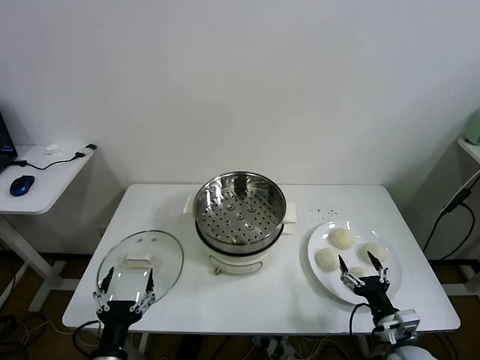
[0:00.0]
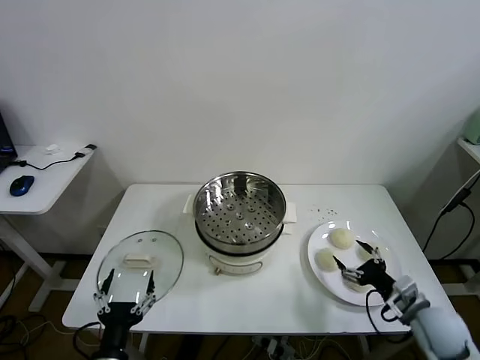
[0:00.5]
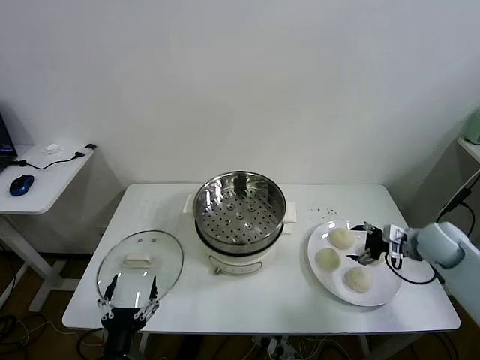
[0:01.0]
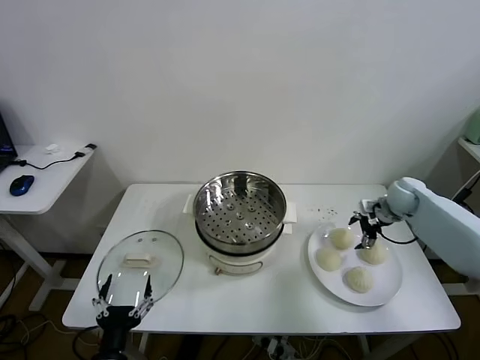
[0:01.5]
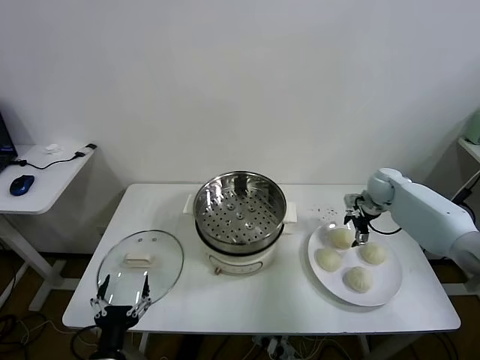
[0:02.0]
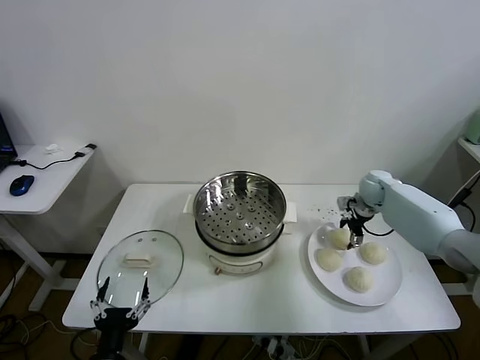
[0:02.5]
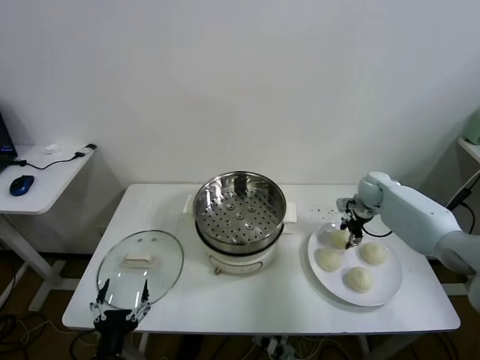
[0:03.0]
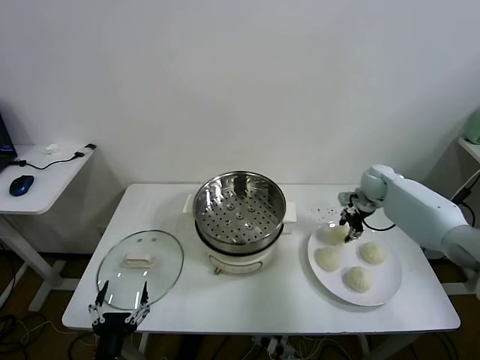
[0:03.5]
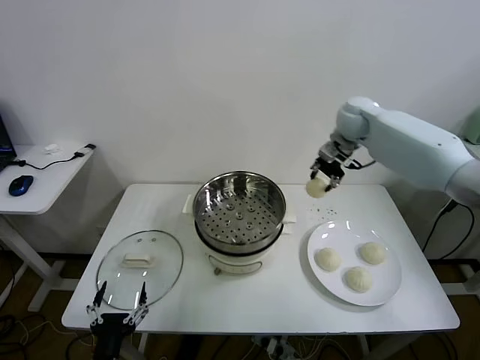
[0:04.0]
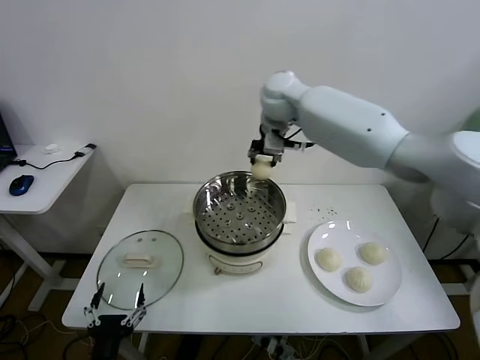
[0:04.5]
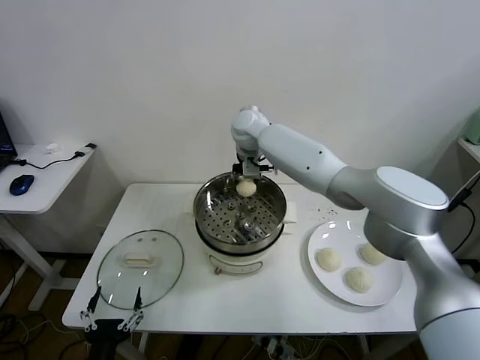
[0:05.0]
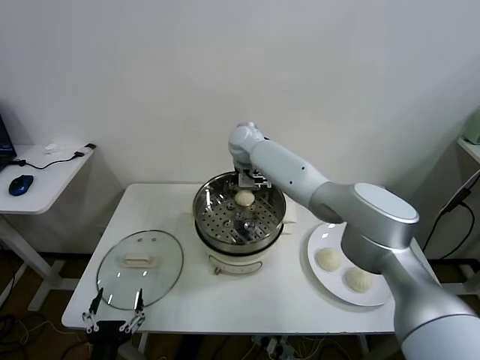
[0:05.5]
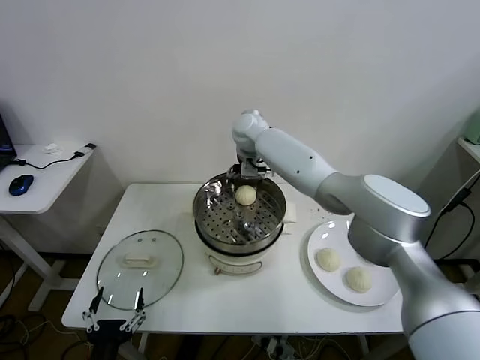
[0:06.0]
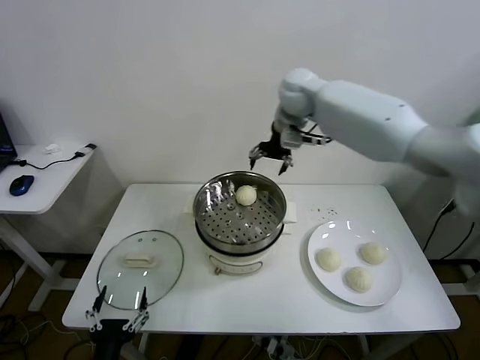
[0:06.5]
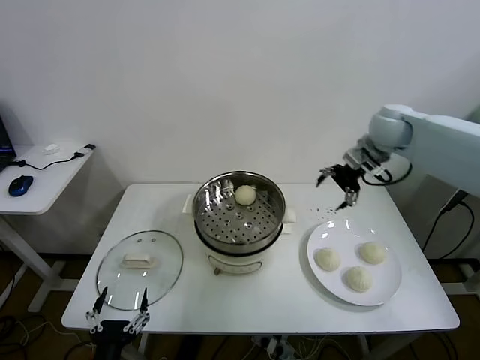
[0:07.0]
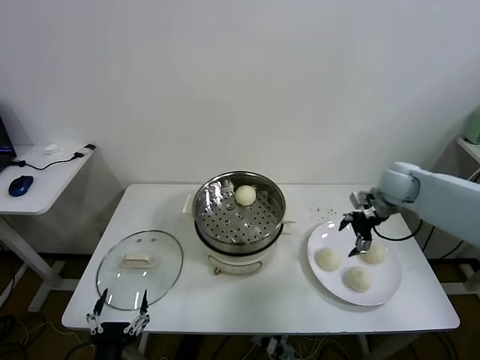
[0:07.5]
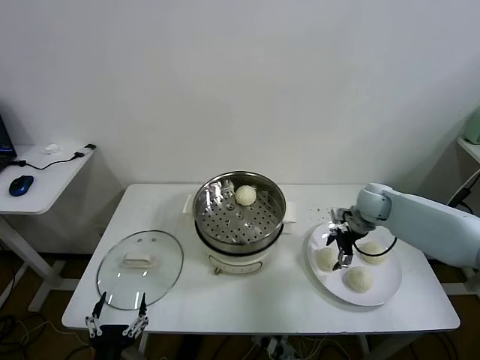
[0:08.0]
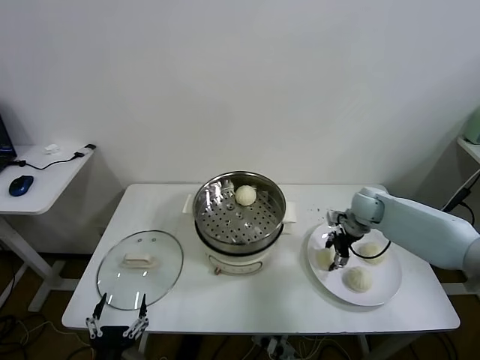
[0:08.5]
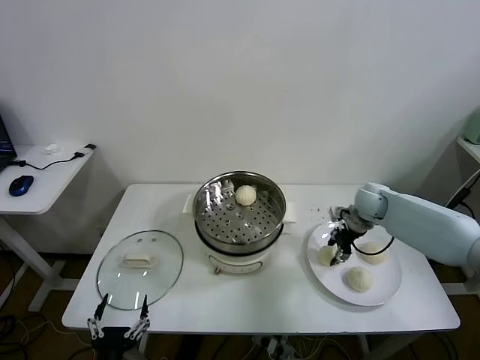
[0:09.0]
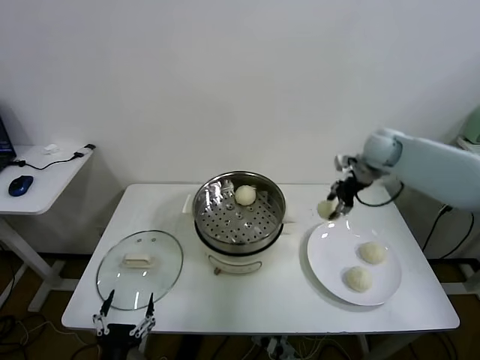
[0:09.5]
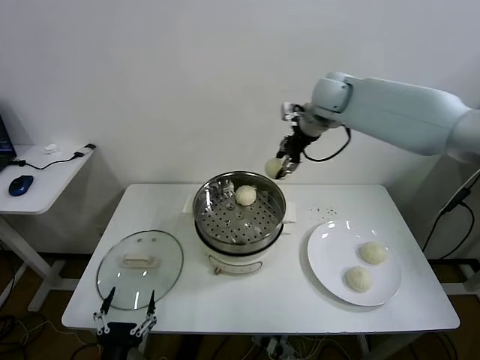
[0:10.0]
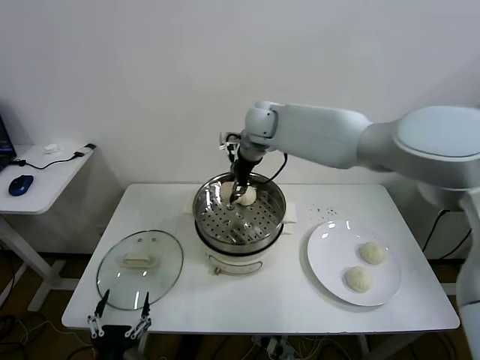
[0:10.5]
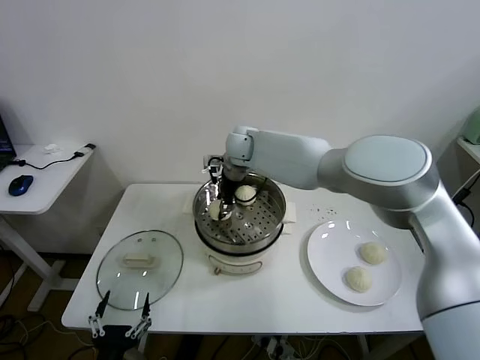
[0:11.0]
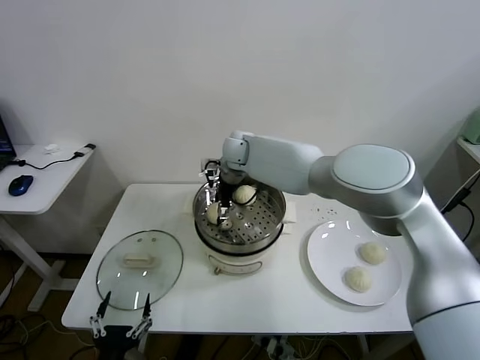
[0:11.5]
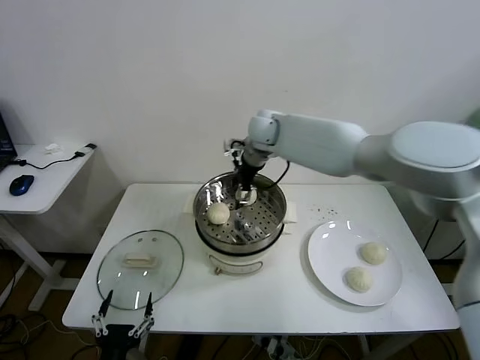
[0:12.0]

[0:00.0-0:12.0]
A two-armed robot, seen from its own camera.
Task of the whole recording: take steamed baozi put them in steamer.
Step, 0:00.0 to 0:03.0: Grasp the baozi in the plate with right gripper.
Step, 0:03.5 to 0:05.5: Place the baozi on the steamer with right gripper.
Step, 0:06.0 to 0:08.5: Grasp the baozi in the plate with right gripper.
Step, 0:09.0 to 0:11.5: Place the baozi on the steamer with right gripper.
0:02.0 to 0:04.0: The right gripper travels upward and to the left by roughly 30 cm, and closes its fingers.
0:04.0 to 0:06.0: The right gripper shifts approximately 20 cm to the left, and opens its fingers.
0:06.0 to 0:08.0: The right gripper goes approximately 35 cm to the right and downward.
0:08.0 to 0:10.0: The right gripper is displaced upward and to the left by some 30 cm, and closes.
0:10.0 to 0:12.0: The right gripper goes some 10 cm downward and to the left, and opens up.

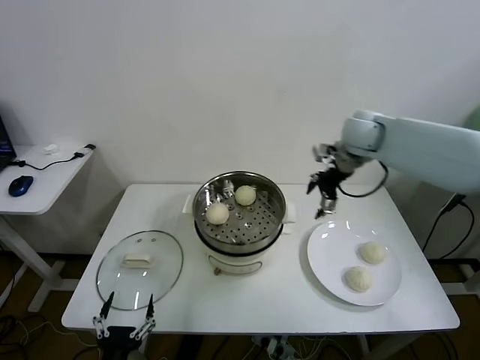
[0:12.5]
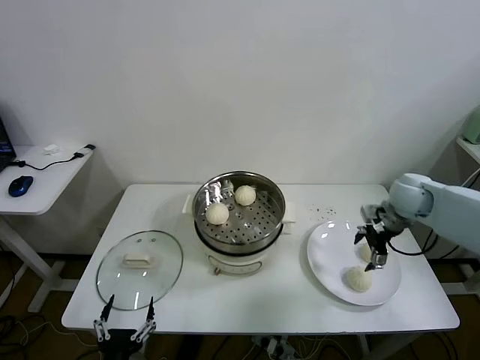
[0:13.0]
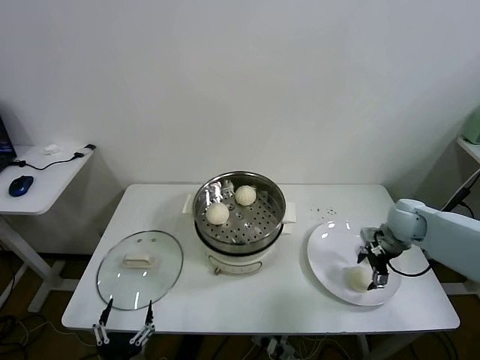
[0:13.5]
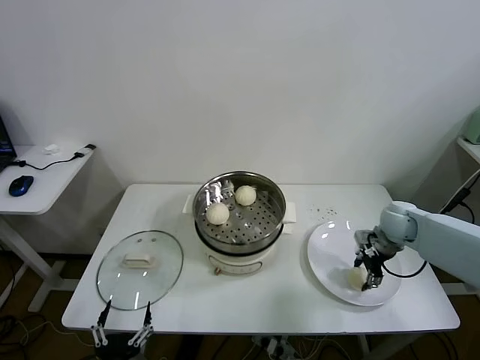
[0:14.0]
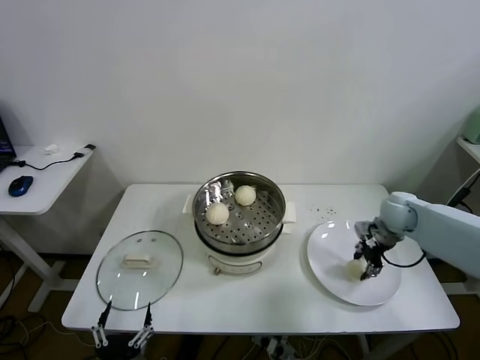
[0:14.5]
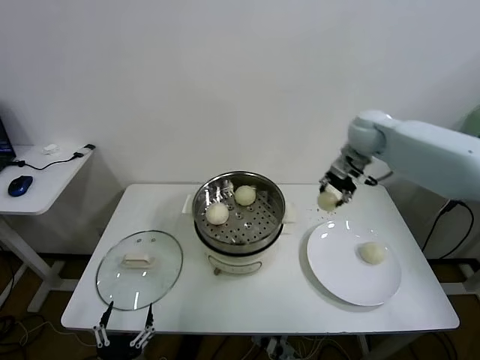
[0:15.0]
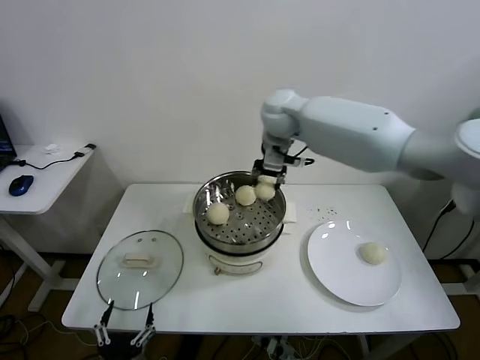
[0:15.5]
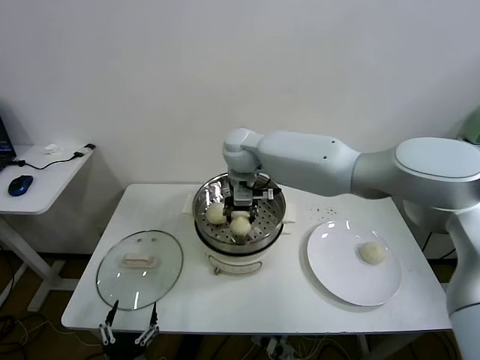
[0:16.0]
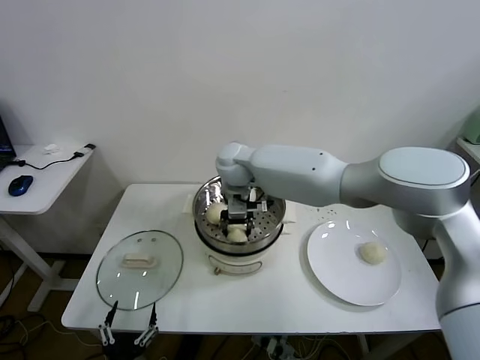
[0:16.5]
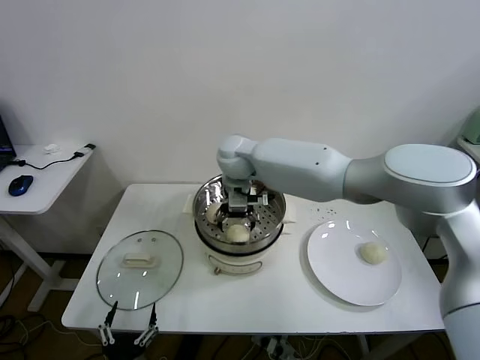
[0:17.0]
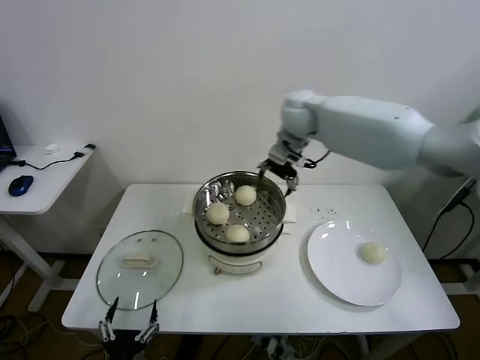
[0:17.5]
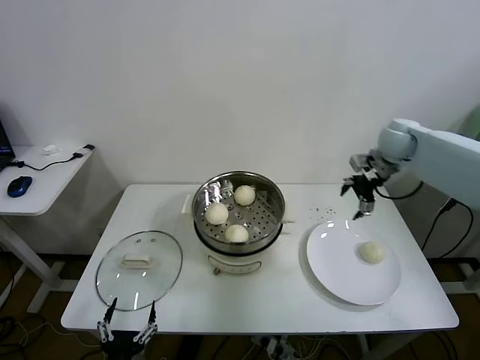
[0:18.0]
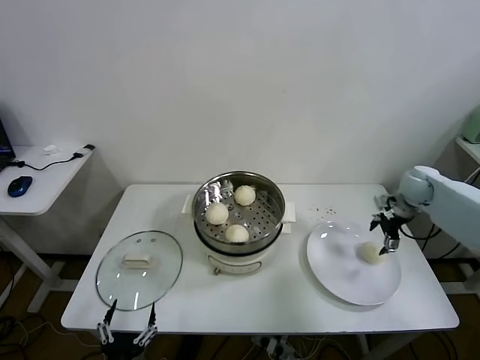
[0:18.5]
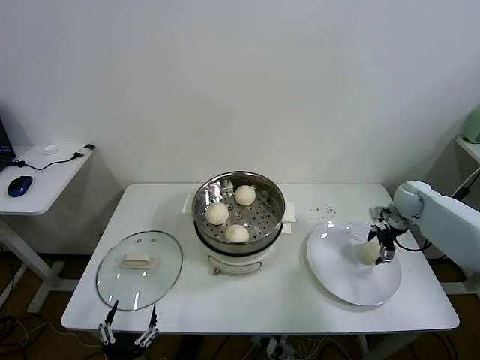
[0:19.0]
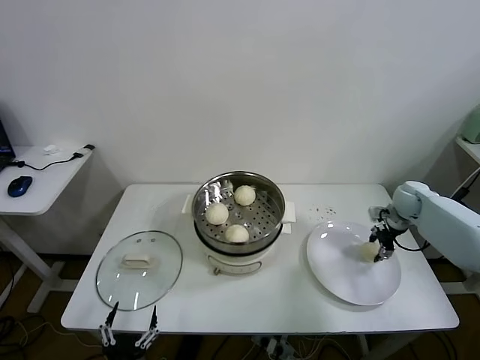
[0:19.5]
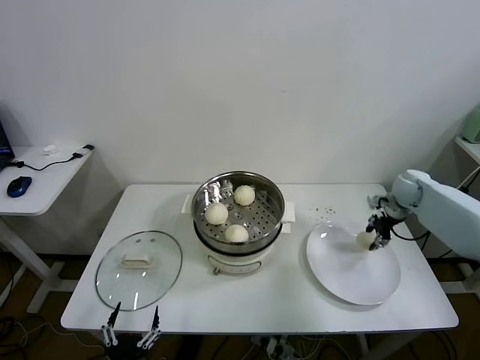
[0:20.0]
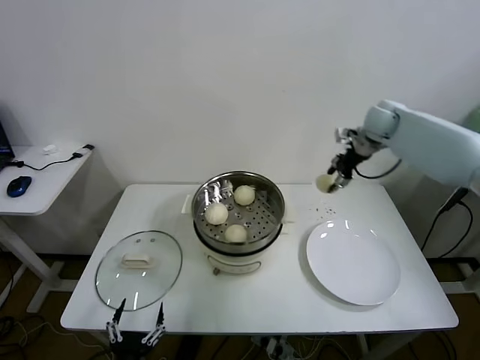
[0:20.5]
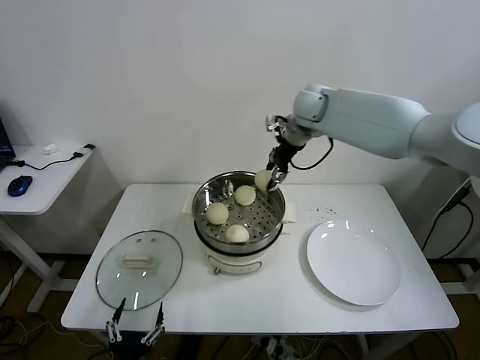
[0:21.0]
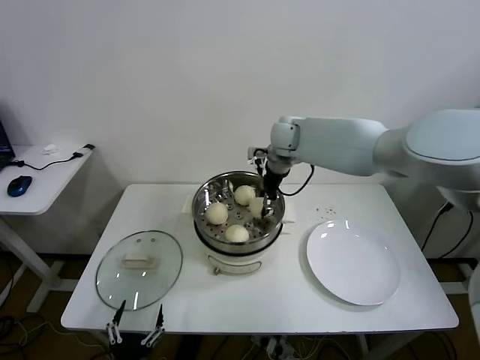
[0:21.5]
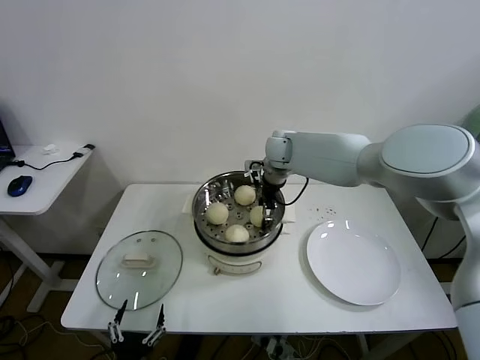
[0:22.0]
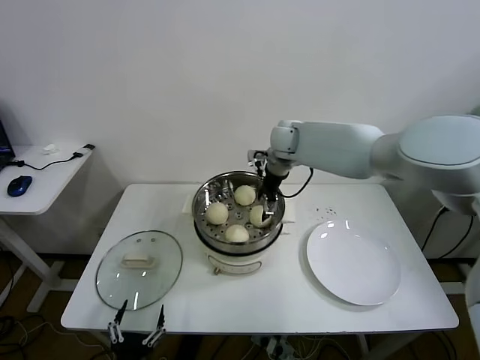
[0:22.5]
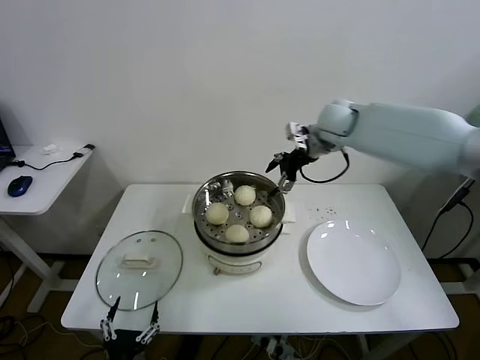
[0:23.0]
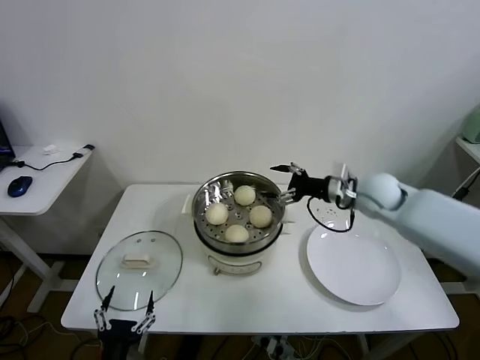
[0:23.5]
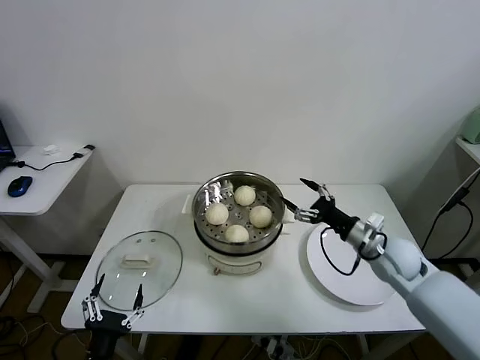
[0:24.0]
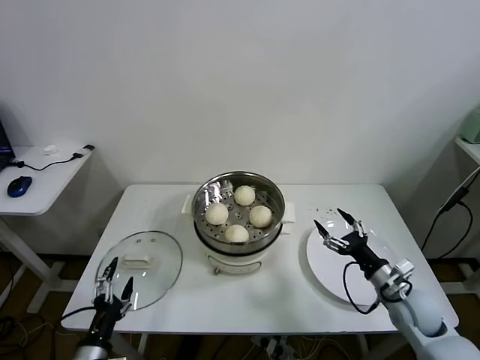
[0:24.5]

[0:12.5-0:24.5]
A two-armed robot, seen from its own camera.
Task of the whole recording: take steamed baozi put them in steamer.
Step, 0:12.5 to 0:14.0: Grasp the baozi in the plate with right gripper.
Step, 0:14.5 to 0:16.5: Place the baozi on the steamer with right gripper.
Step, 0:17.0 to 0:19.5: Grasp the baozi in the plate with right gripper.
Step, 0:20.0 to 0:22.5: Place the baozi on the steamer with right gripper.
0:12.5 to 0:14.5: The right gripper is displaced downward and to the right by approximately 15 cm, and closes its fingers.
0:14.5 to 0:16.5: The right gripper heads to the left, covering roughly 40 cm.
0:16.5 to 0:18.5: The right gripper shifts some 50 cm to the right, and opens up.
0:18.5 to 0:20.5: The right gripper shifts roughly 25 cm upward, to the left and forward, and closes up.
0:20.5 to 0:22.5: The right gripper moves to the left, roughly 20 cm, and opens its fingers.
0:22.5 to 0:24.5: The right gripper is displaced backward, to the right and downward by about 50 cm. Meanwhile the left gripper goes approximately 10 cm to the left and forward.

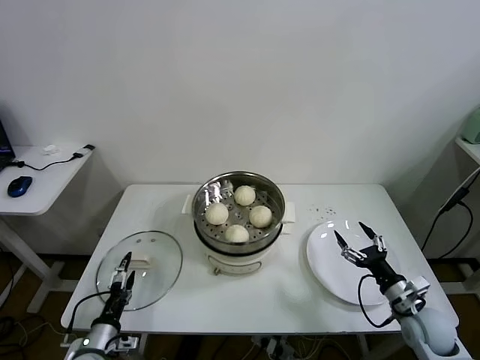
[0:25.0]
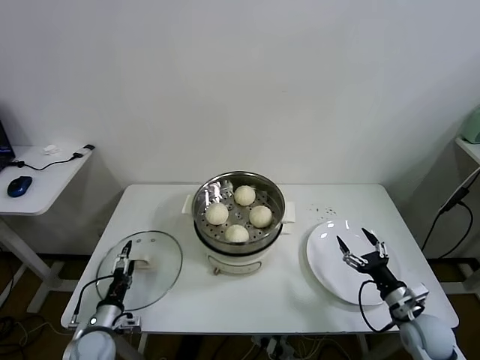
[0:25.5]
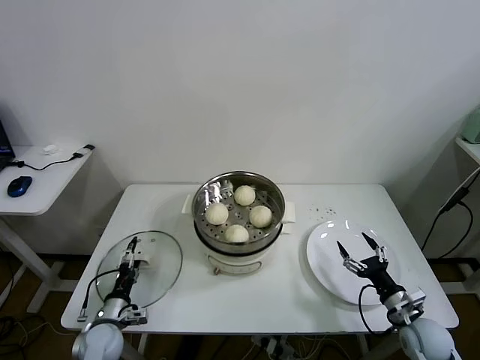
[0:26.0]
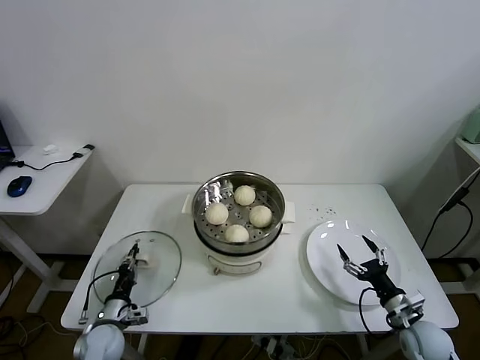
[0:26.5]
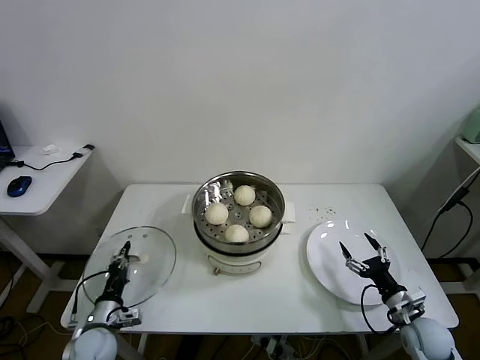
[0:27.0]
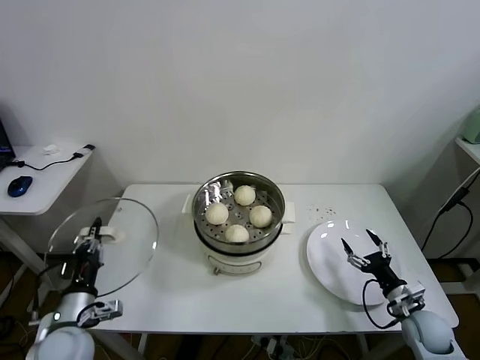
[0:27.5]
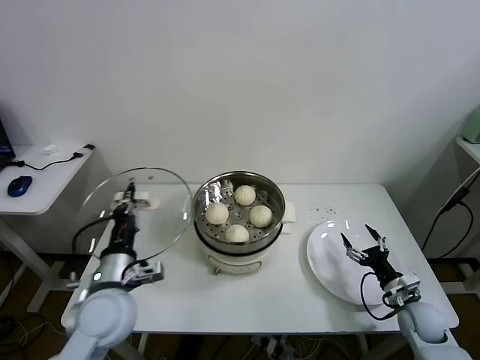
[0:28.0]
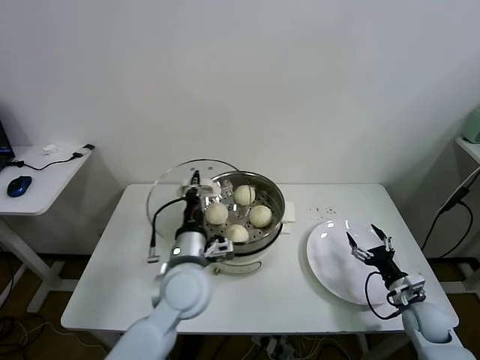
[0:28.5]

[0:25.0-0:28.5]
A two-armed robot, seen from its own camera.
Task of the whole recording: take steamed baozi put them in steamer.
0:25.0 to 0:27.0: The left gripper goes some 5 cm forward, and closes up.
0:27.0 to 0:28.5: The left gripper travels to the right and upward by about 30 cm.
